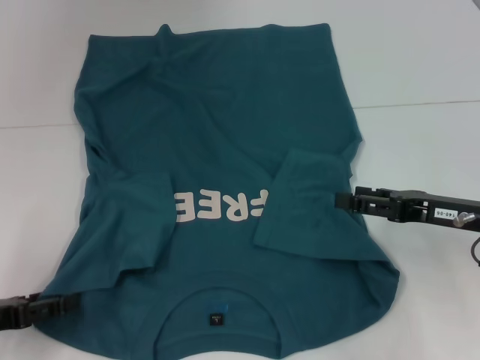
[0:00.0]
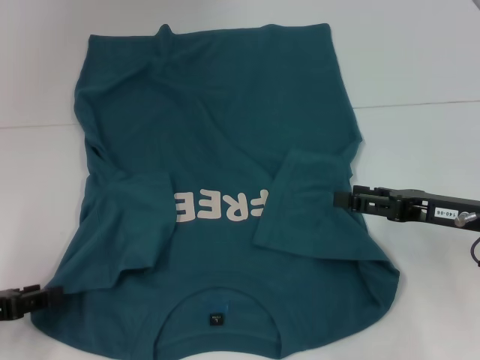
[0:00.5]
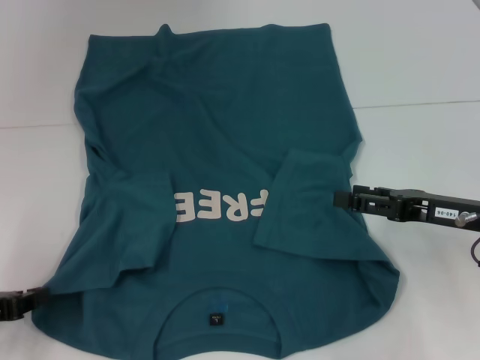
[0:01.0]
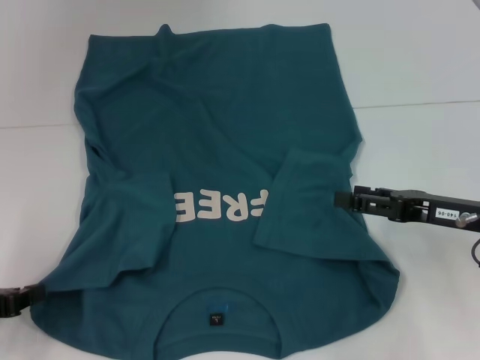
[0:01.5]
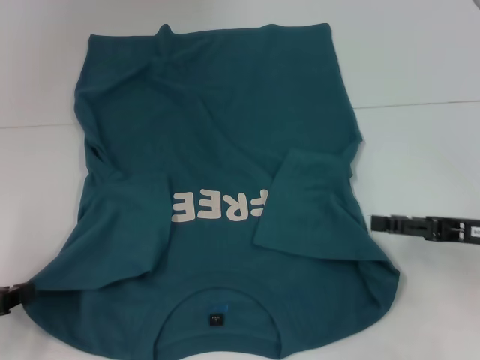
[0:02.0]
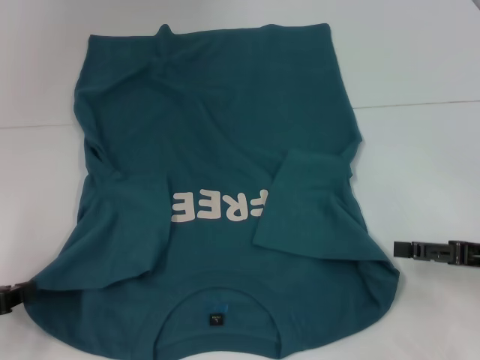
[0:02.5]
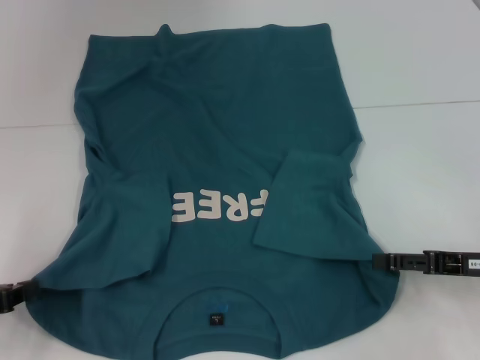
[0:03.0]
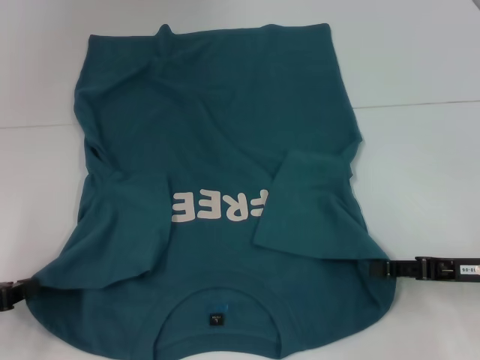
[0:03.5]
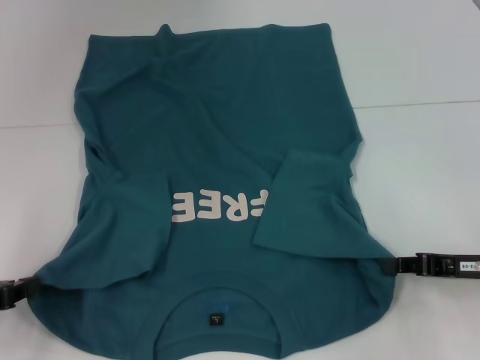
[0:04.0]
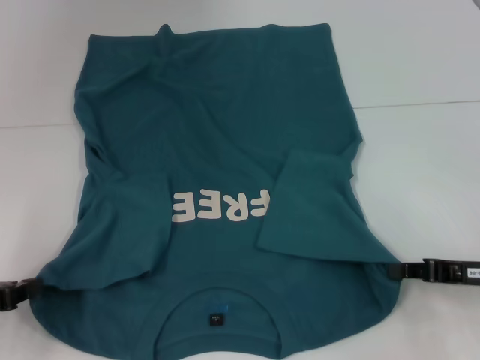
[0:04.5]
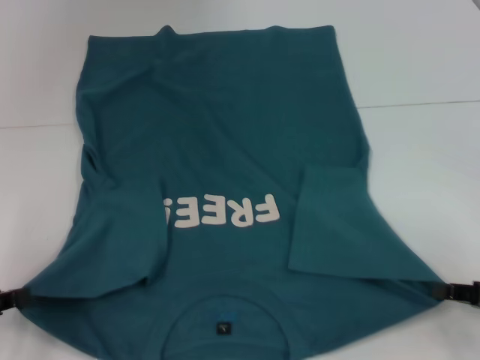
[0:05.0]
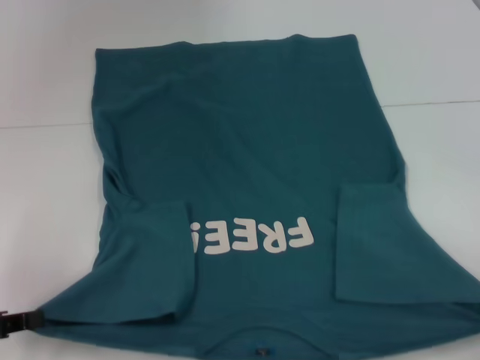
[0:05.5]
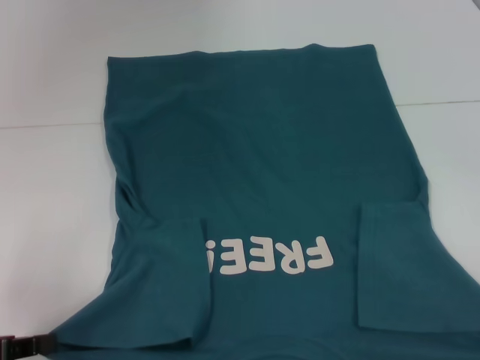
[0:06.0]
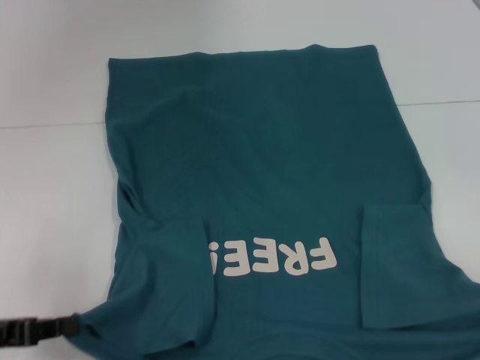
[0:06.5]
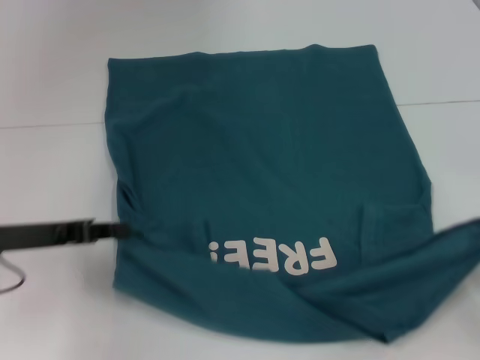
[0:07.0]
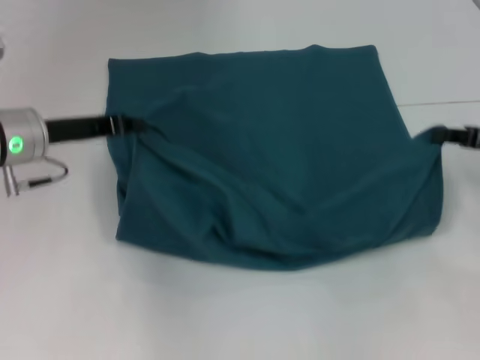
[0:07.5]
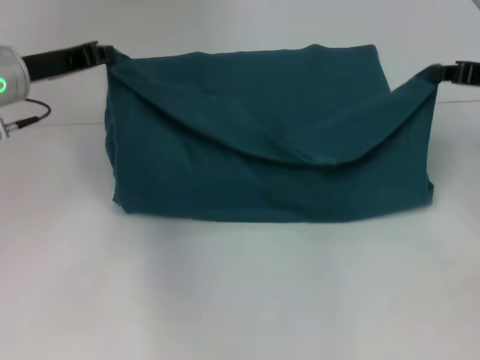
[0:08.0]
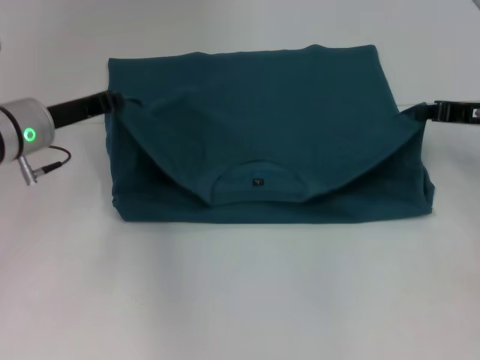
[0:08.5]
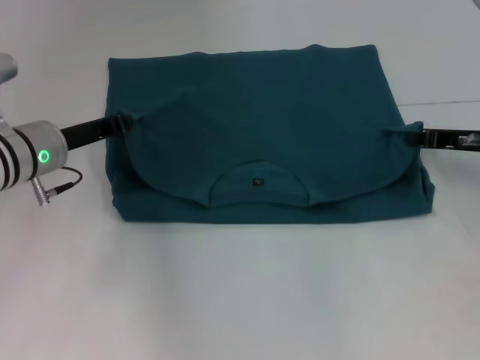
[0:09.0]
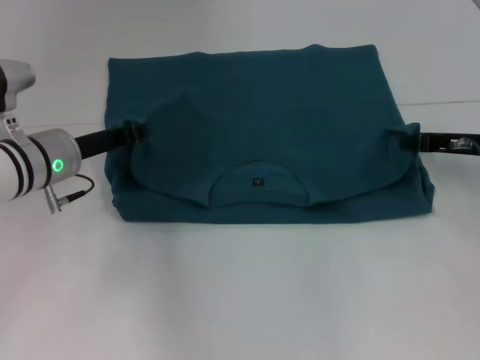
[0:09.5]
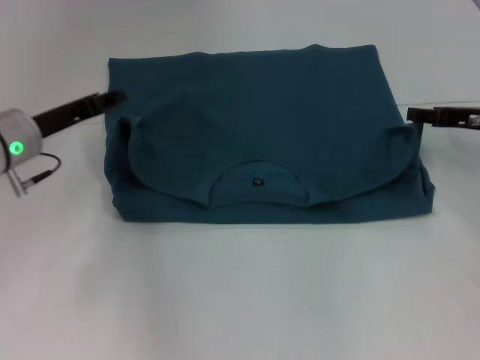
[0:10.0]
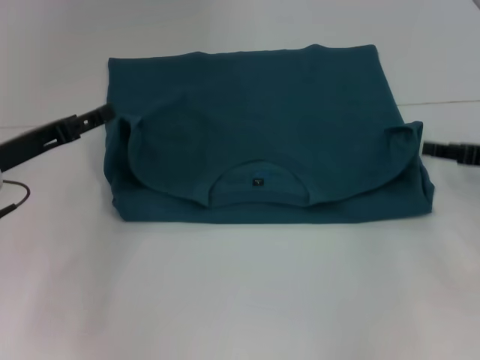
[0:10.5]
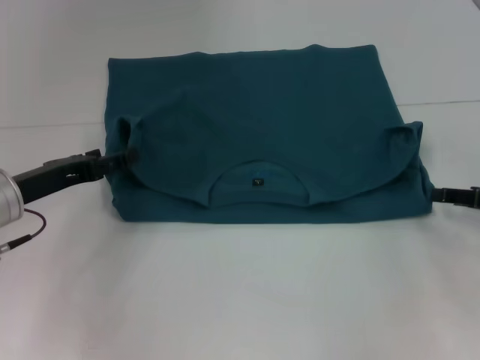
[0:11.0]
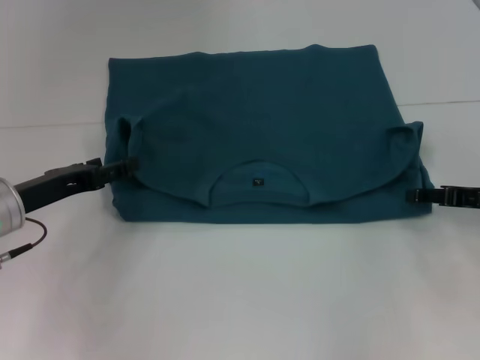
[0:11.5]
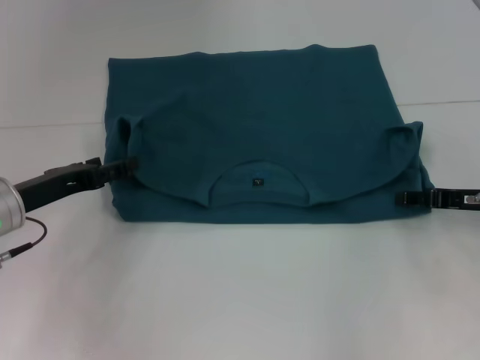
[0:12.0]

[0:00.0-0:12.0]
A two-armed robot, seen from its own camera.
Step, 0:01.5 to 0:04.0: Grab the bottom right corner with your right hand.
Step, 0:04.5 to 0:09.5: Fold the clothes to the left.
Step, 0:04.5 to 0:09.5: Fold the clothes to the right.
0:00.0 to 0:02.0: The left gripper closes up.
0:02.0 to 0:04.0: The right gripper closes its fingers.
0:04.0 to 0:06.0: The right gripper travels backward and to the right by roughly 20 cm.
0:06.0 to 0:08.0: The left gripper shifts about 25 cm forward, to the right and upward, while the right gripper moves forward and upward, roughly 30 cm.
0:08.0 to 0:10.0: Both grippers move downward, about 5 cm. The right gripper opens its fingers. Meanwhile the left gripper opens up.
0:10.0 to 0:12.0: Both grippers travel together backward, some 5 cm. The left gripper opens its fingers.

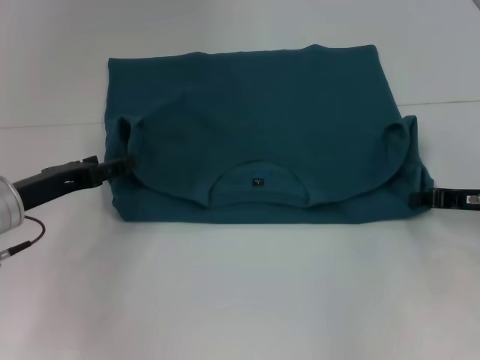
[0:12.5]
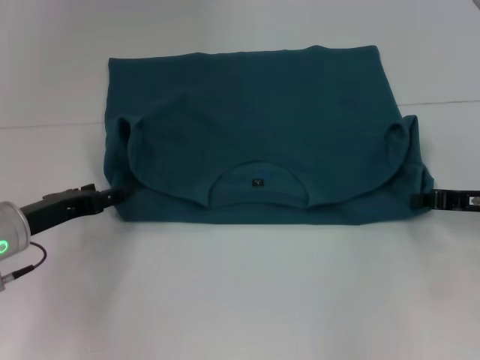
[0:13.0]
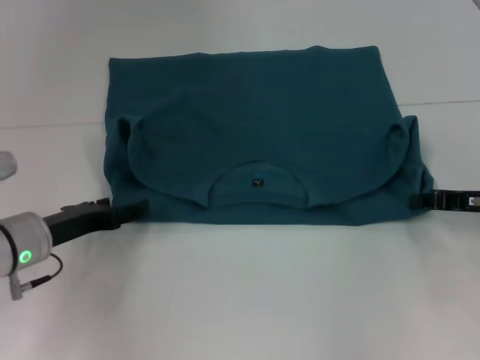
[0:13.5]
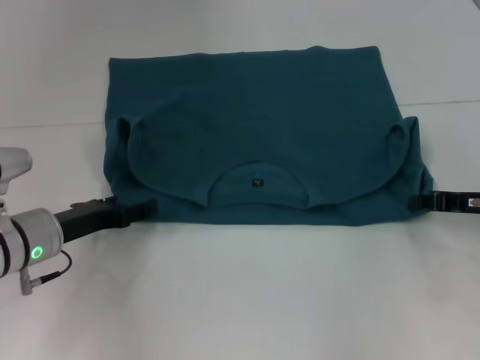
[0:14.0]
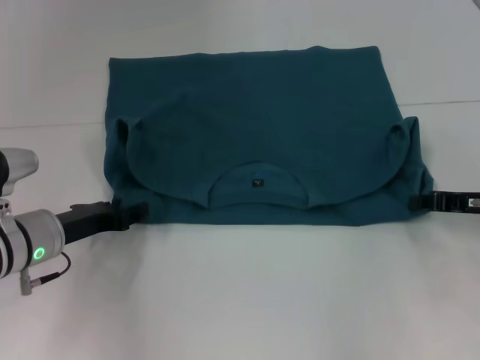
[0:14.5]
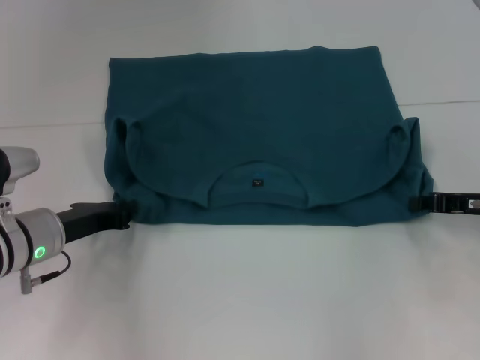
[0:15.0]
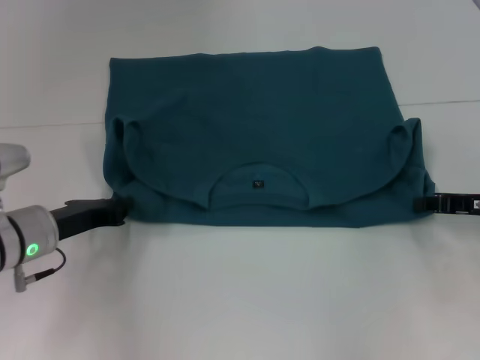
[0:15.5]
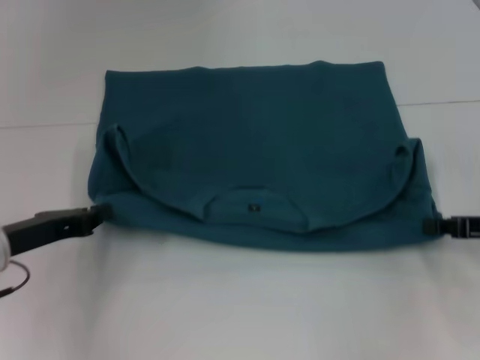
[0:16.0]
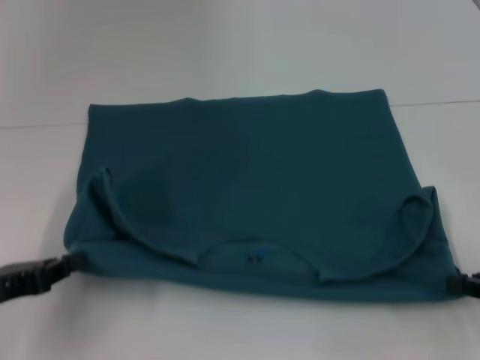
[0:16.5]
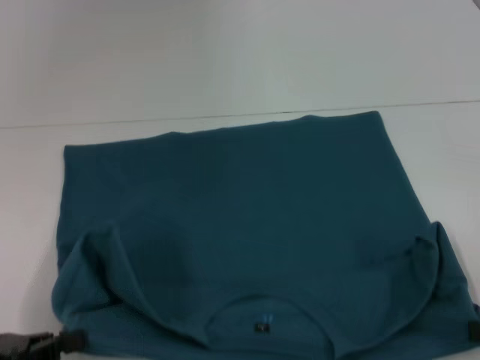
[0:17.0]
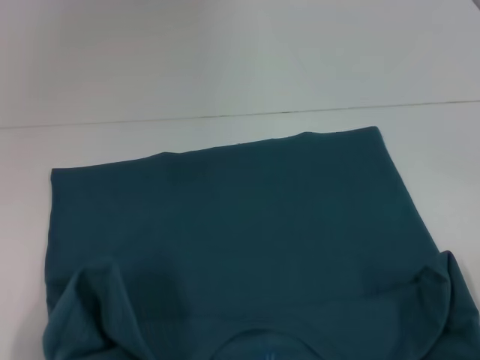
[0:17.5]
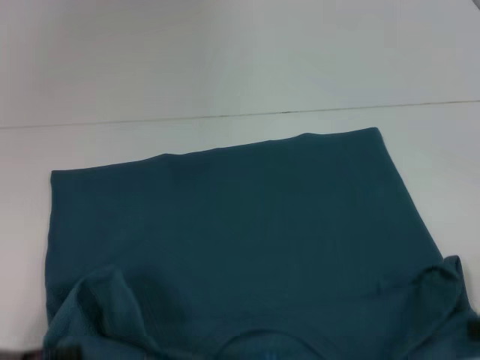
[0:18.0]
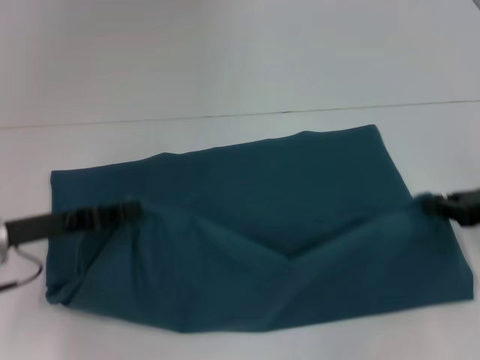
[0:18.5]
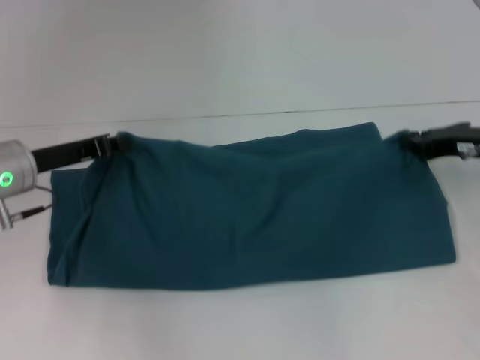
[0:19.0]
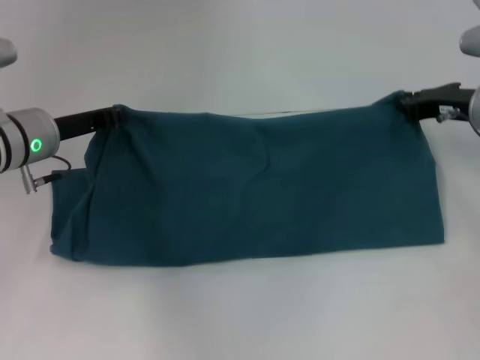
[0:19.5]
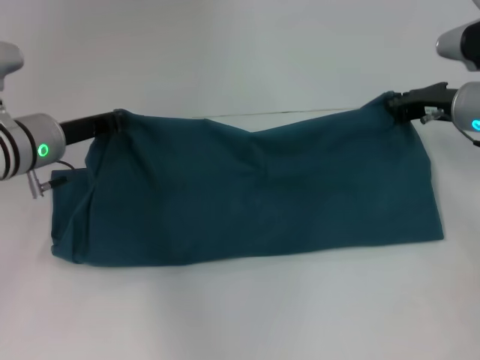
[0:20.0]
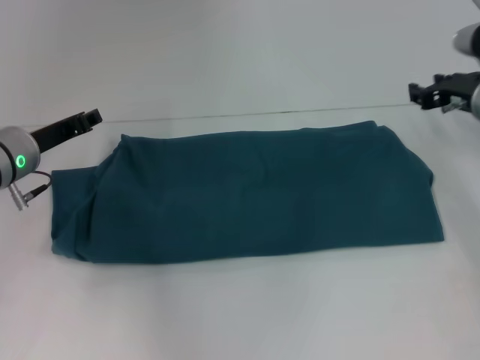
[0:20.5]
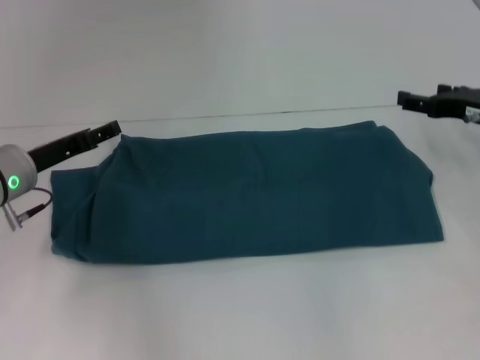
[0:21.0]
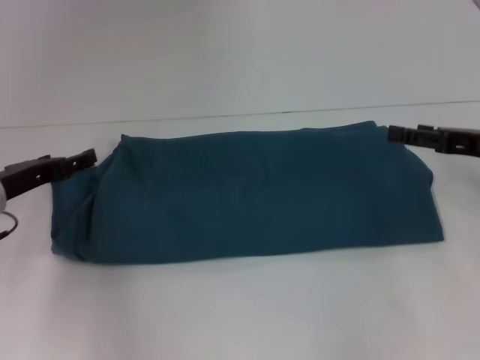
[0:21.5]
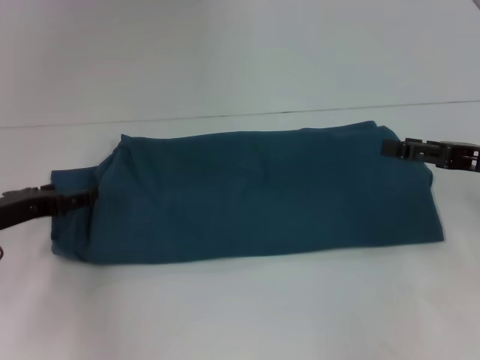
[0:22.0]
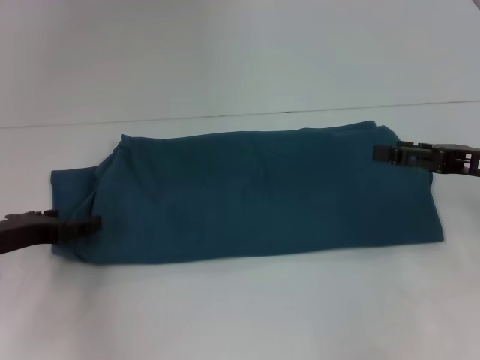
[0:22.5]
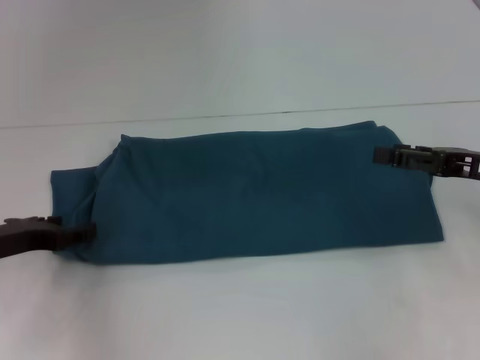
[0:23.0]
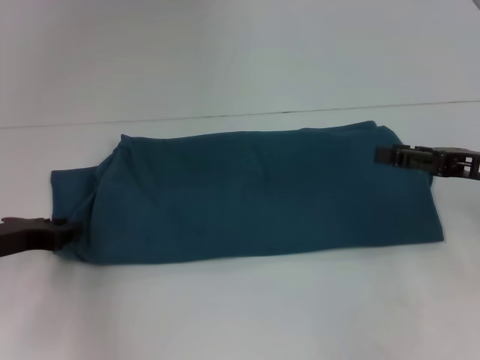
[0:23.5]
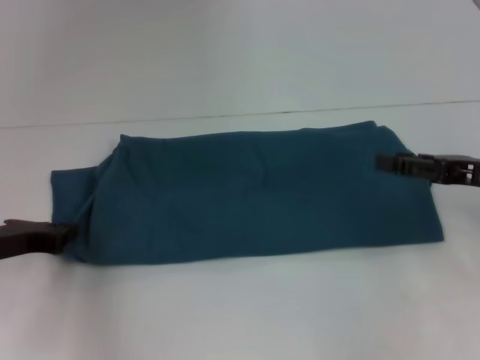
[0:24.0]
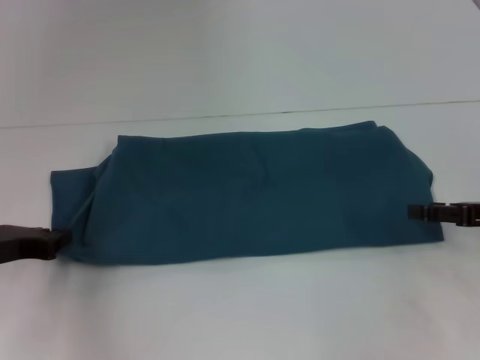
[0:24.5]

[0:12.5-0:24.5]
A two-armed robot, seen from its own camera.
Step, 0:12.5 to 0:17.0: Pull the clothes with your left hand.
Step, 0:12.5 to 0:17.0: Pull the clothes with your right hand.
Step, 0:17.5 to 0:20.0: Fold the clothes to the right.
0:12.5 to 0:14.5: The left gripper ends up about 5 cm from where it was.
0:14.5 to 0:16.5: The right gripper heads backward, covering roughly 10 cm, while the left gripper is displaced backward and to the left by about 15 cm, and closes up.
0:16.5 to 0:18.5: The two grippers go some 5 cm forward.
0:18.5 to 0:20.5: The left gripper shifts roughly 10 cm forward; the right gripper travels forward and to the left by about 15 cm.
0:20.5 to 0:22.5: Both grippers travel together backward, approximately 10 cm. The right gripper opens its fingers. Meanwhile the left gripper opens its fingers.
0:22.5 to 0:24.5: The left gripper closes.

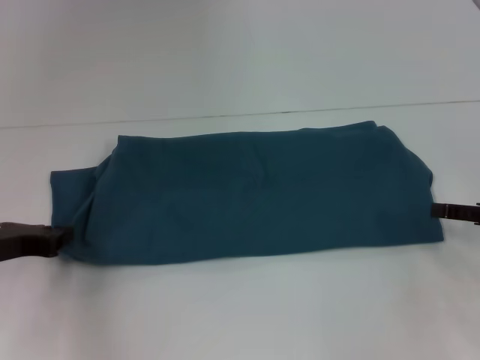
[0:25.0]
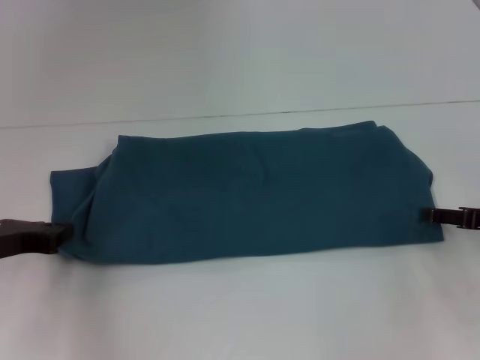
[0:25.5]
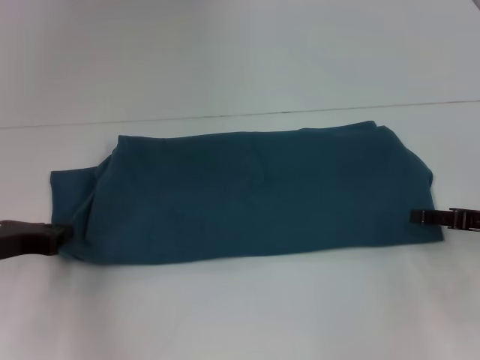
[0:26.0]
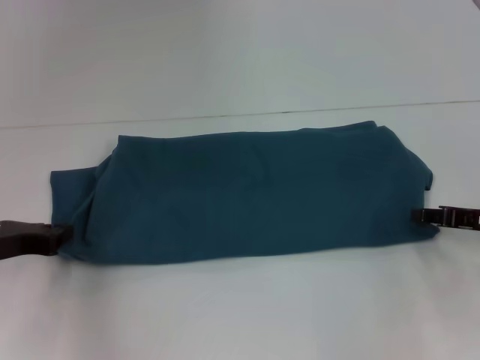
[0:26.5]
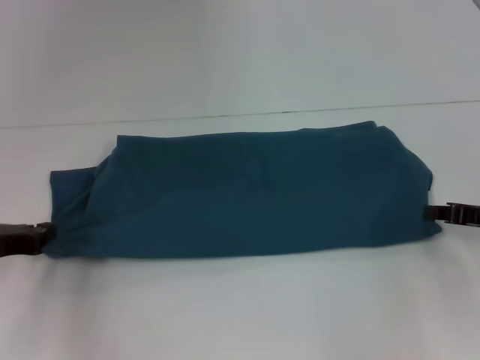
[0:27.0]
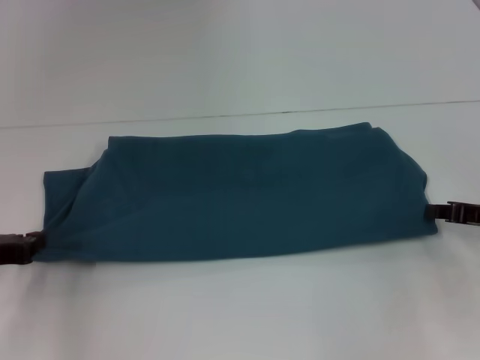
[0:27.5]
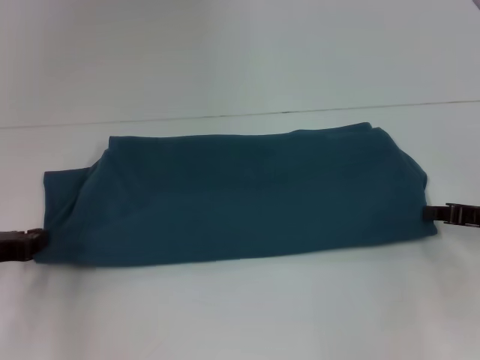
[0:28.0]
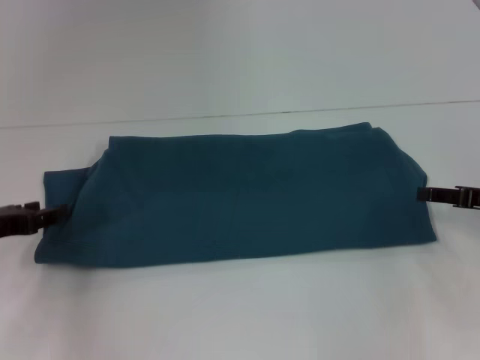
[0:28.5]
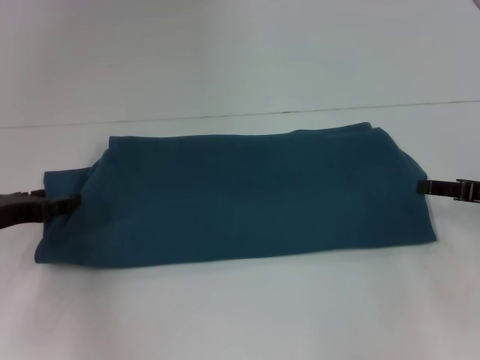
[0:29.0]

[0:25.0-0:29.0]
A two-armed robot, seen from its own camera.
0:25.0 to 0:27.0: The right gripper closes.
0:27.0 to 0:29.0: The right gripper opens its fingers. The left gripper opens.
